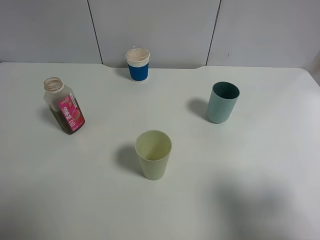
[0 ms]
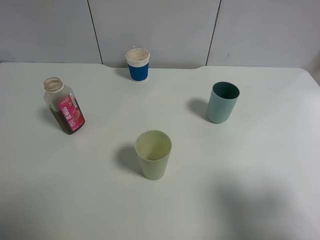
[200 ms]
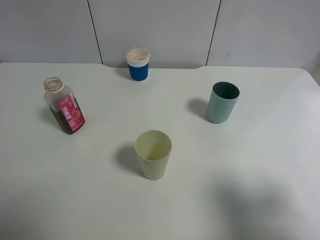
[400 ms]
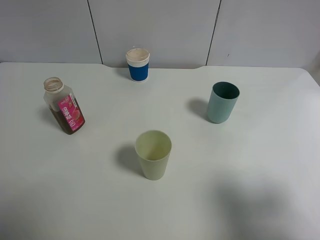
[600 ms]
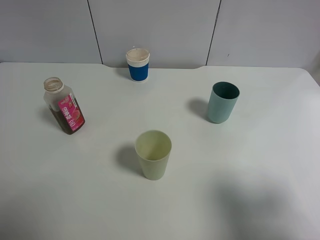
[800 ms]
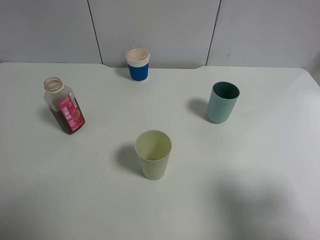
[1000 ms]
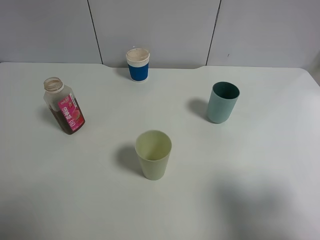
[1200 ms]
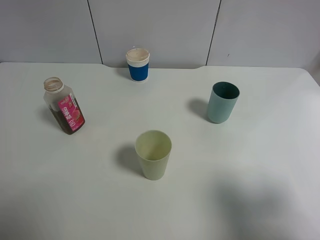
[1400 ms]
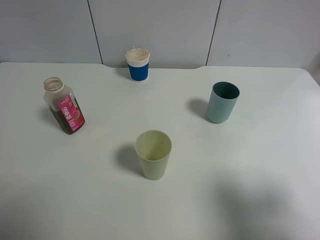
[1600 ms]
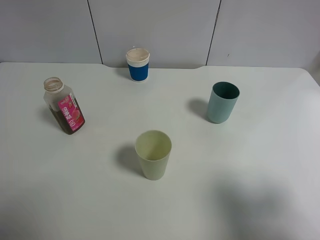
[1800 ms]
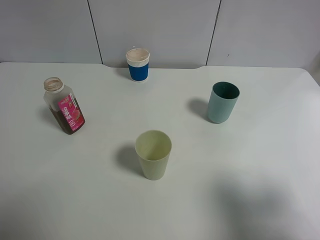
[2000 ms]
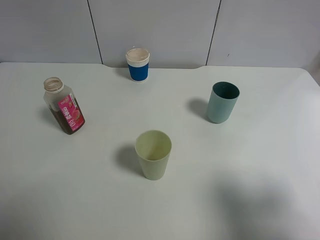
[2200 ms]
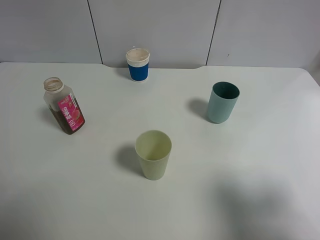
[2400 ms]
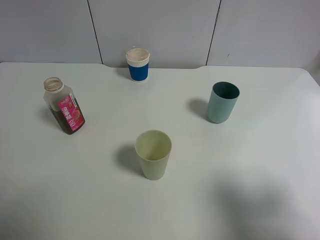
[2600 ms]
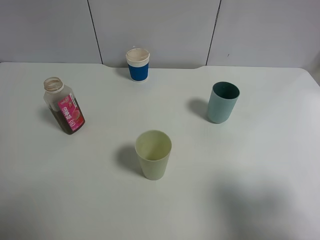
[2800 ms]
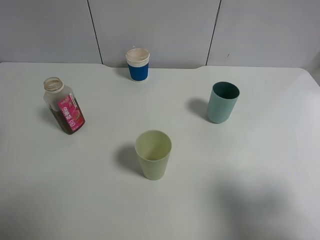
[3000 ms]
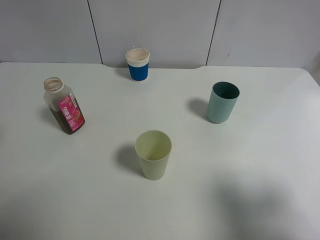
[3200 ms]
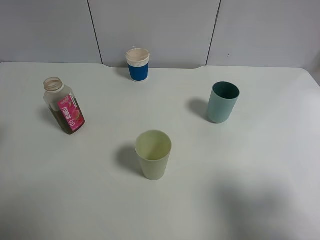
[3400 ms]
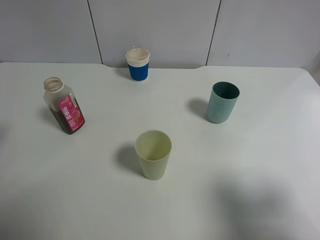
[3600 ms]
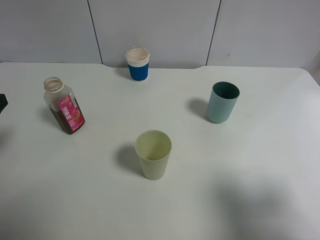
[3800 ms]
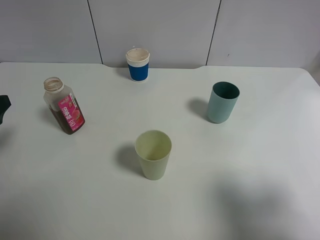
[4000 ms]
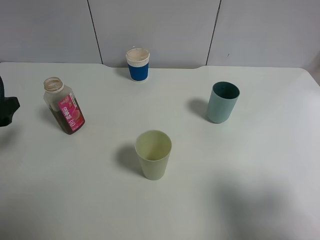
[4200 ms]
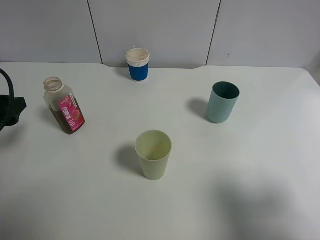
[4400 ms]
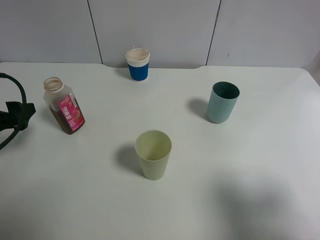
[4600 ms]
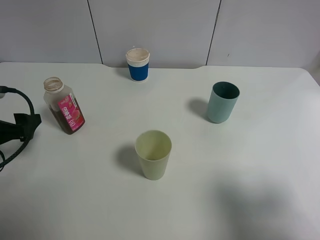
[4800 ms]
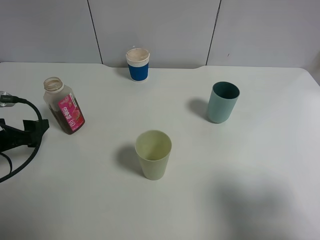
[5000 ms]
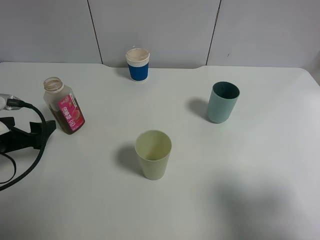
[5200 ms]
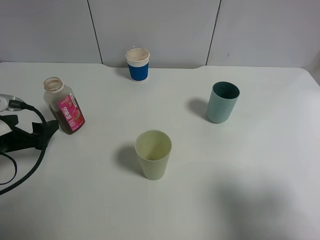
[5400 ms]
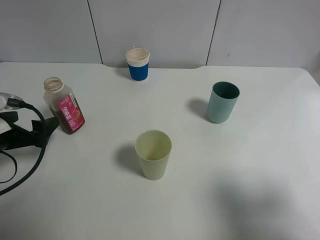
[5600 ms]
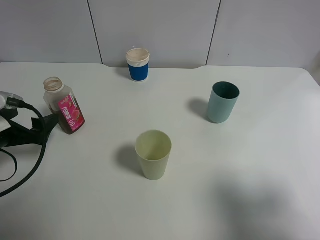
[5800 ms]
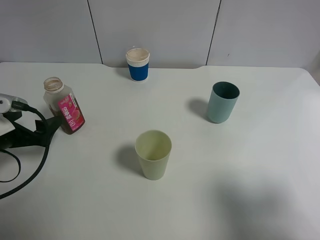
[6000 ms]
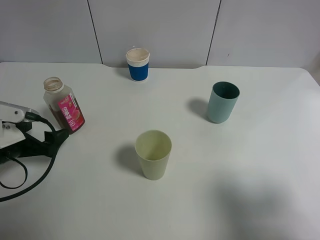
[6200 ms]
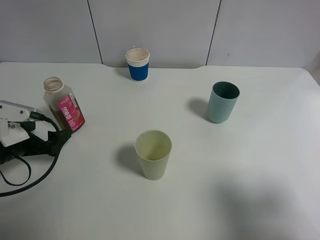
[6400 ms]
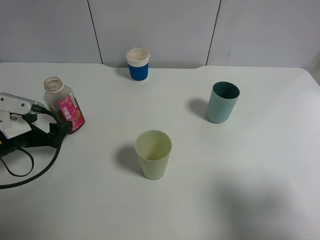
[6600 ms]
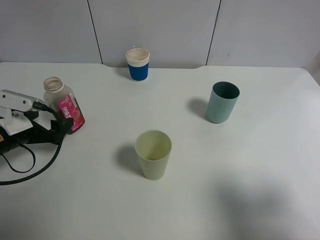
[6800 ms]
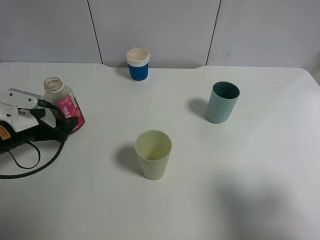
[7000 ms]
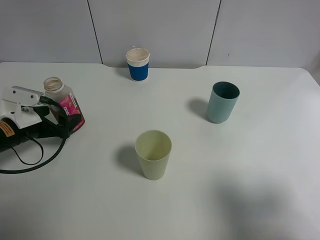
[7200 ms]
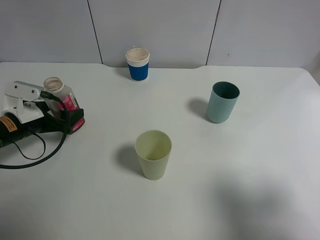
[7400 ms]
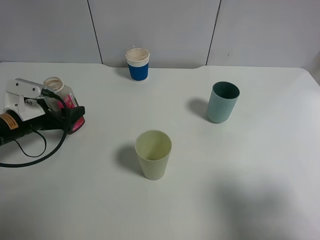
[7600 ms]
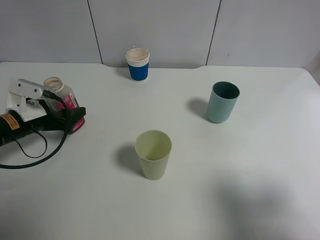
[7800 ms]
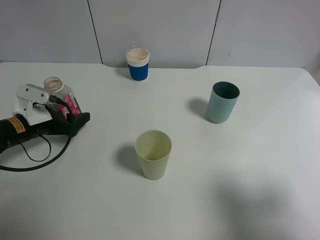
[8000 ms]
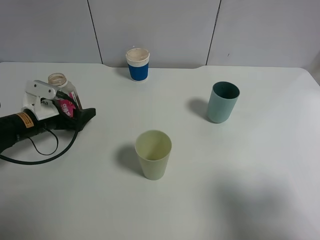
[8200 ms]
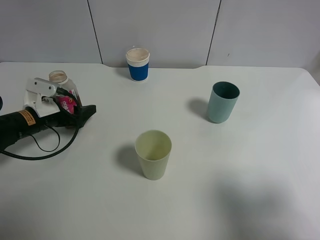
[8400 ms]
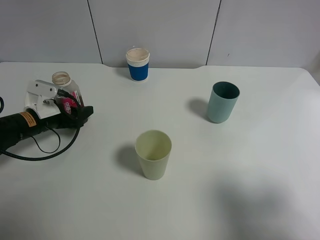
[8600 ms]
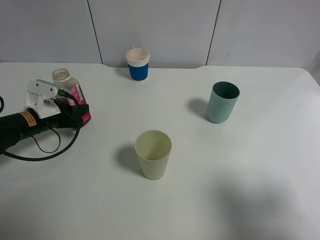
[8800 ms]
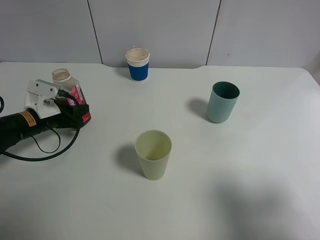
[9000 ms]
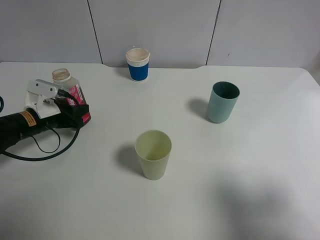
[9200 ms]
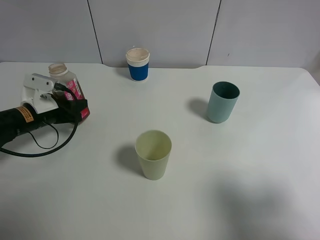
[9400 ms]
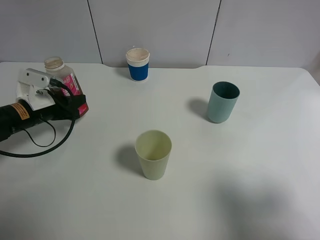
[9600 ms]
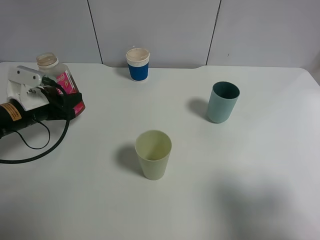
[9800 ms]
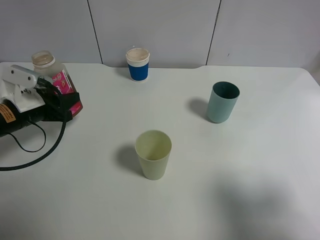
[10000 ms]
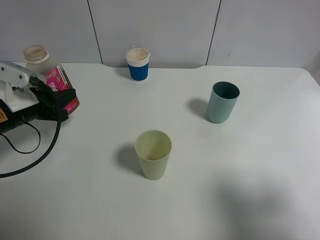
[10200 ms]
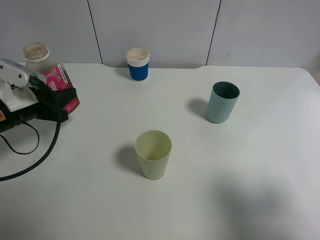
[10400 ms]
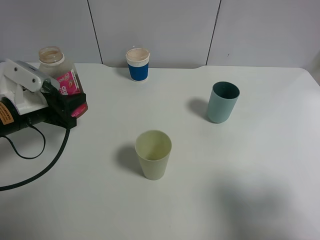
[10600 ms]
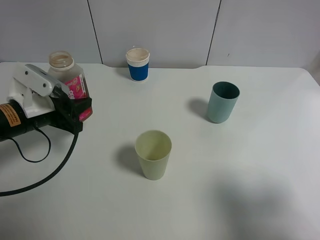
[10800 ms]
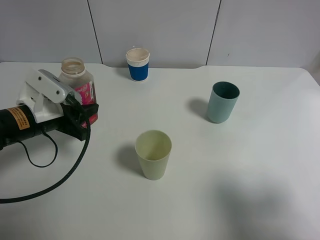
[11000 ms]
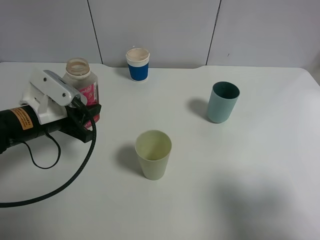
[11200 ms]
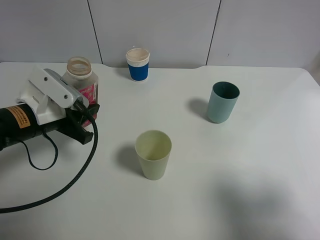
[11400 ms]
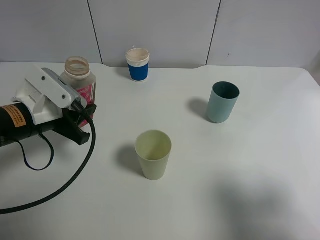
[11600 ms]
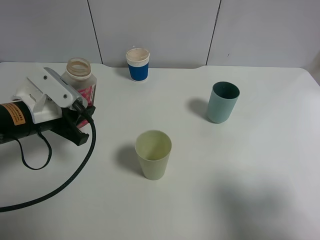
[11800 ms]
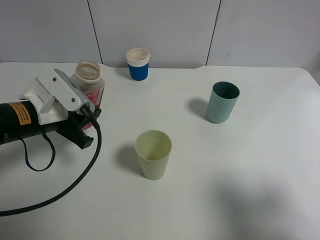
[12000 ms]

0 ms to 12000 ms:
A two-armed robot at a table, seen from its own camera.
Task of the whole recording: use a gripper to hold the bottle of the drink and pour it into a random cup.
Step, 0 ms to 9000 ms: Grasp the cranberry juice bottle with the left gripper.
3000 ms to 4400 ms: The left gripper is displaced downward and forward by about 10 cm.
4400 ms to 6000 ms: The left gripper goes approximately 5 cm downward.
6000 ms to 7600 ms: The left gripper is displaced forward by some 5 cm.
7600 ms to 9000 ms: The left gripper closes its fingers.
9000 ms to 10400 ms: The left gripper travels upward and backward by roughly 10 cm.
10400 ms to 12000 ms: The left gripper is displaced to the right by about 5 cm.

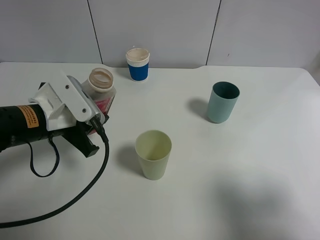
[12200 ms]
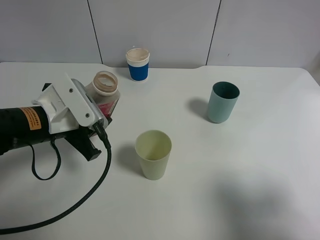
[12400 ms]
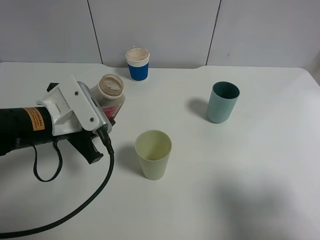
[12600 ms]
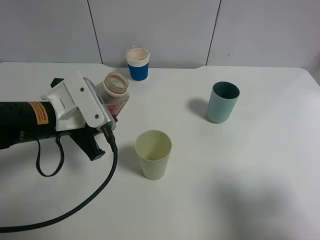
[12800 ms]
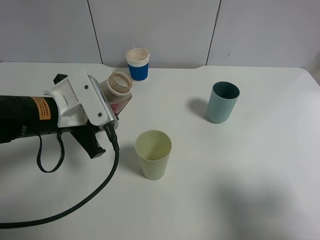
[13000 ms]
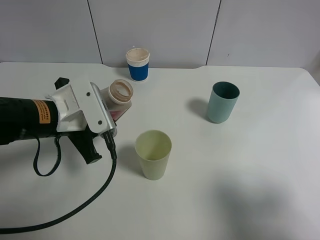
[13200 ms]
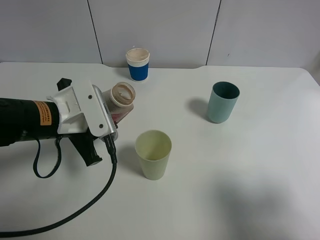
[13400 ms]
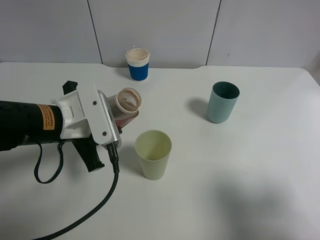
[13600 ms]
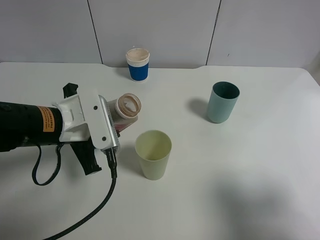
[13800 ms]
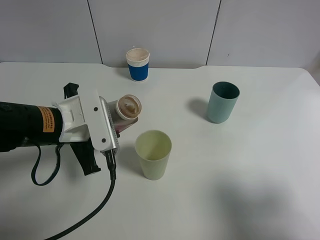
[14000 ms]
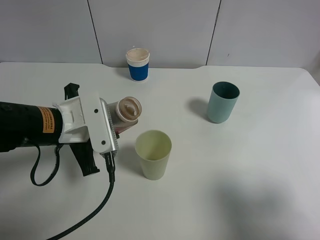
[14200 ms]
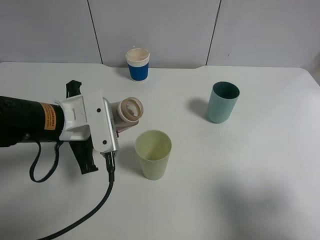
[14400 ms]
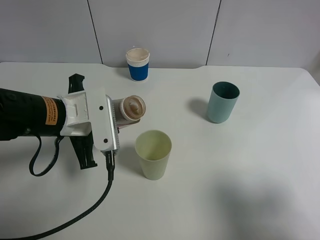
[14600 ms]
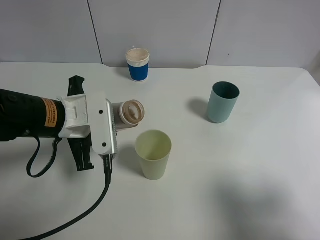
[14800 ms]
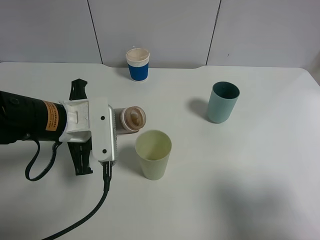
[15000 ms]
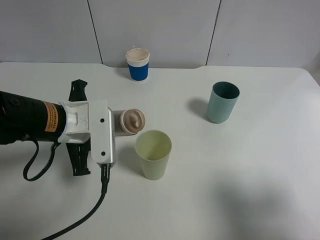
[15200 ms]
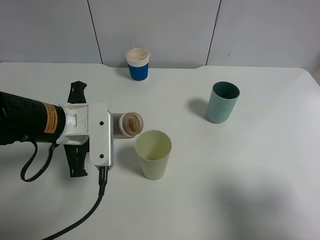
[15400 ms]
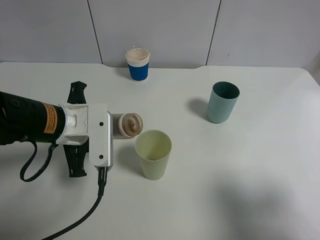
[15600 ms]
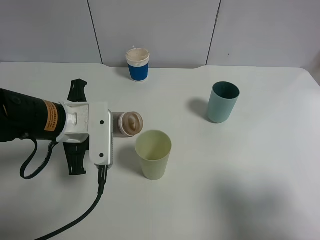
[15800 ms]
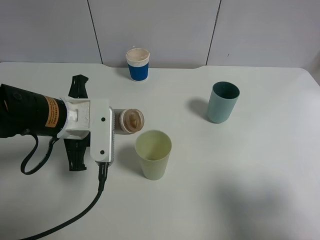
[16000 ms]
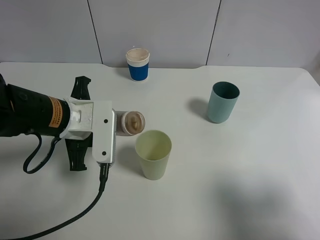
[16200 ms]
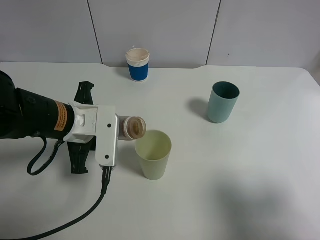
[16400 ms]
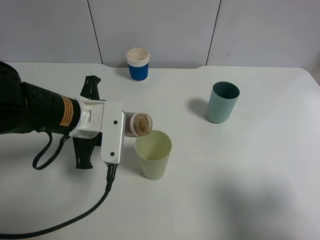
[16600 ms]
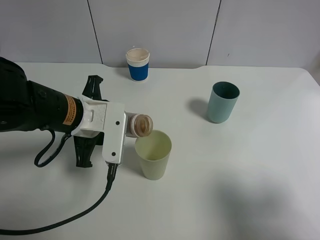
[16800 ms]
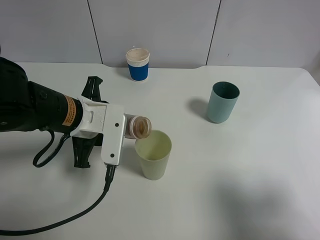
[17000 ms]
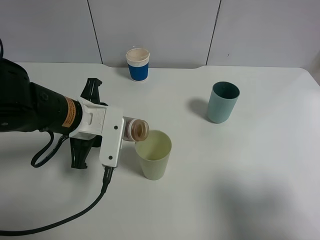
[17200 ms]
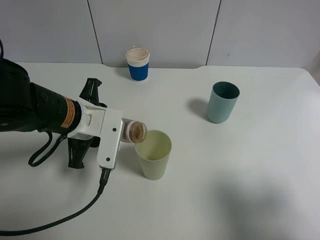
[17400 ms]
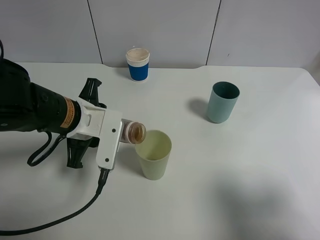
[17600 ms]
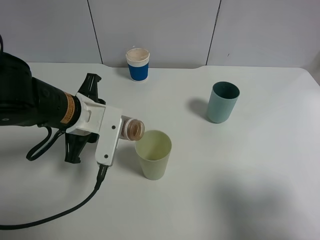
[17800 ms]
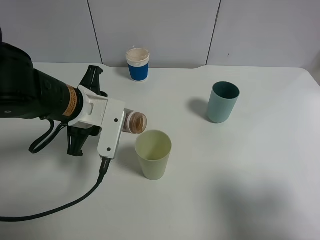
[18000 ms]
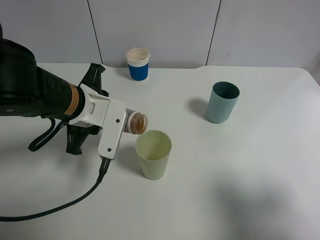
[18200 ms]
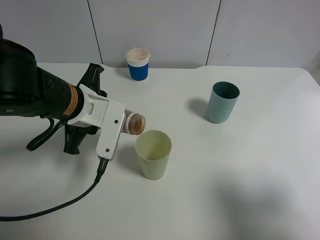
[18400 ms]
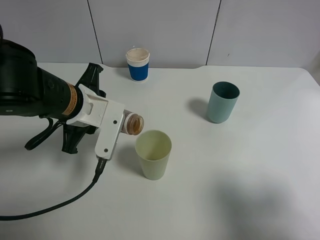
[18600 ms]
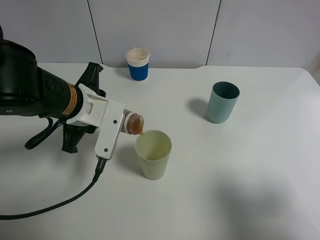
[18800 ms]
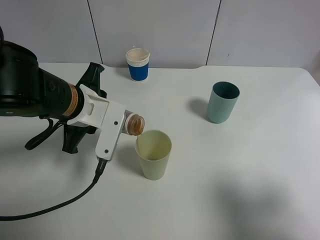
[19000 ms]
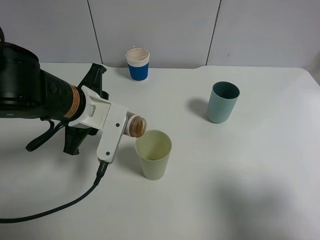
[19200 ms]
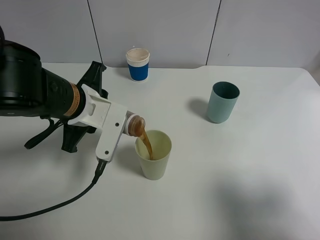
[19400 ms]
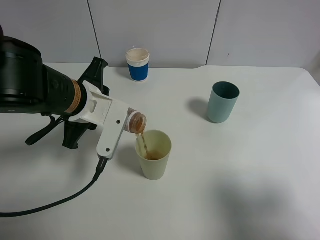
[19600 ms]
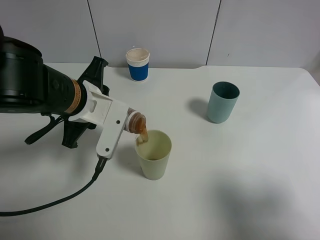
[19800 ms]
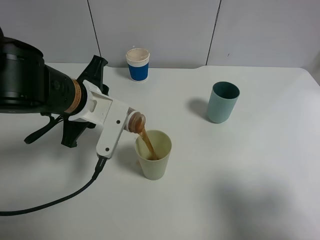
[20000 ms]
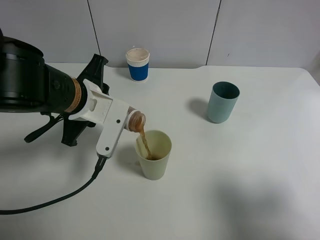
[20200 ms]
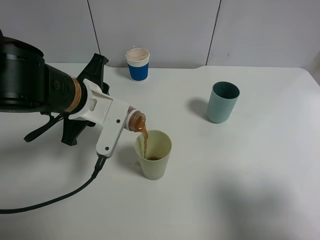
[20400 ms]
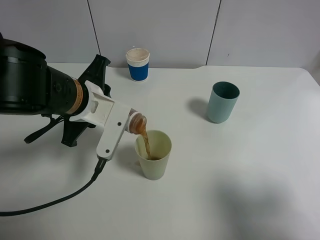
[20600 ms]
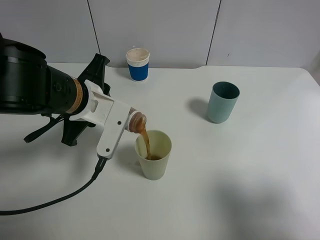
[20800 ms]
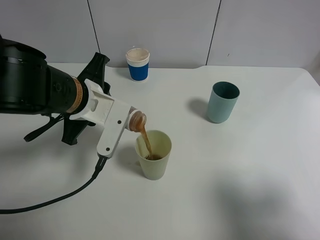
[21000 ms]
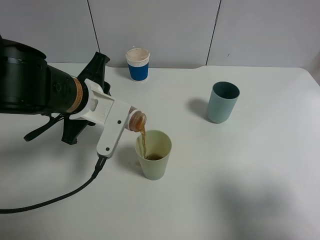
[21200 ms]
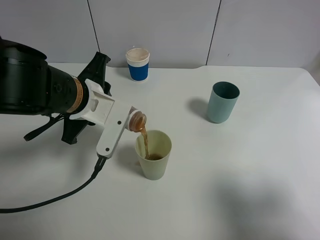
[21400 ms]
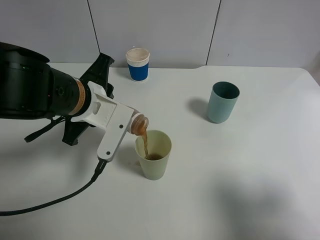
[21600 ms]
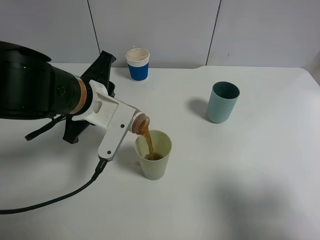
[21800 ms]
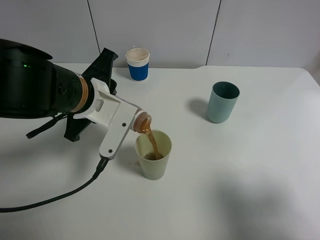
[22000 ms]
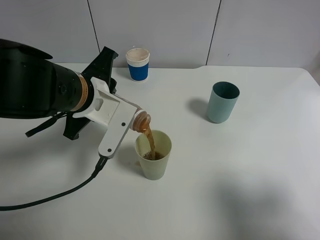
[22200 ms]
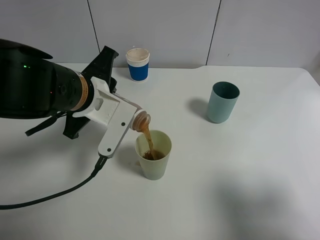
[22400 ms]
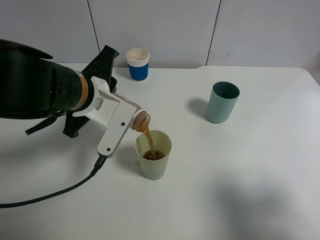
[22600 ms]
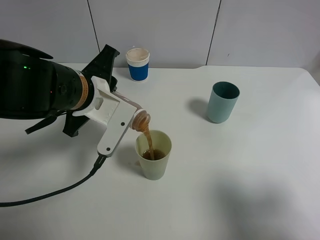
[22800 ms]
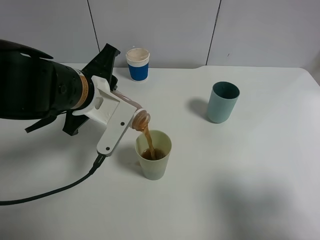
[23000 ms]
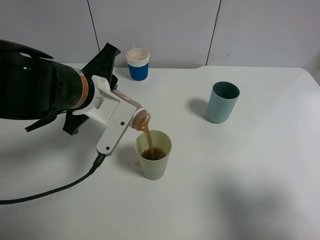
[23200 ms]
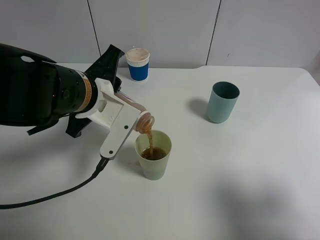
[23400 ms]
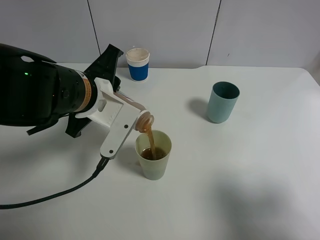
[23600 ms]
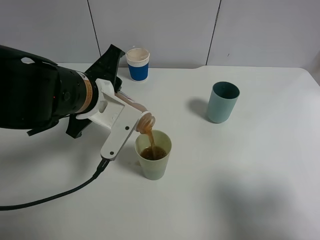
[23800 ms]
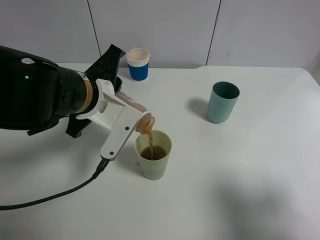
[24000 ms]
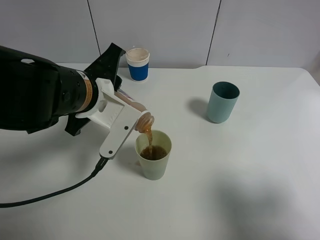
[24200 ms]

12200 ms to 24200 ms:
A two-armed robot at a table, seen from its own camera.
Task of the whole recording: use a gripper to hold the bottle of the drink and pour it into a random cup.
13800 ms to 15200 ms: The grippers move only a little.
15200 ms to 16600 ms: The grippers stay close to where they were, moving slightly.
16600 ms to 18200 ms: There are only small adjustments of the grippers.
18200 ms to 19800 ms: There are only small adjustments of the grippers.
19800 ms to 21200 ms: Both grippers stay put.
21200 ms to 24200 ms: There are only small adjustments of the grippers.
